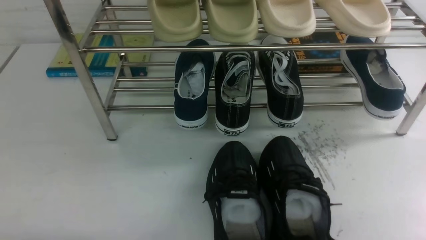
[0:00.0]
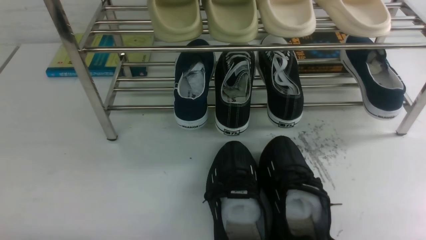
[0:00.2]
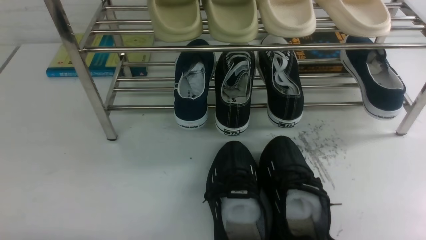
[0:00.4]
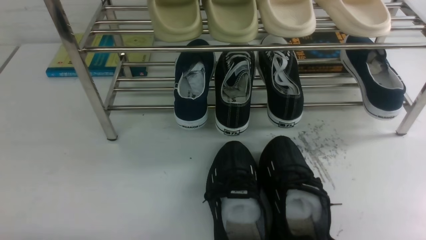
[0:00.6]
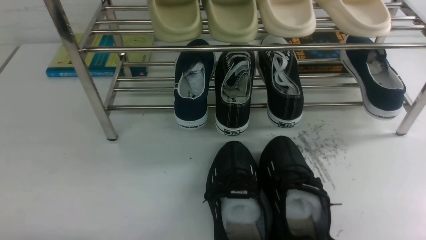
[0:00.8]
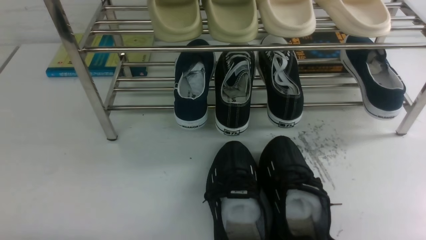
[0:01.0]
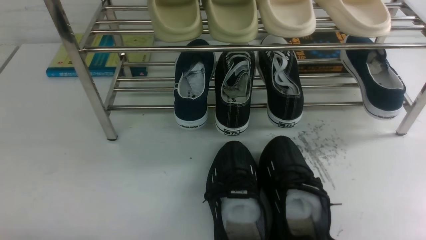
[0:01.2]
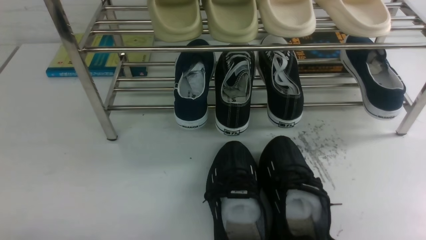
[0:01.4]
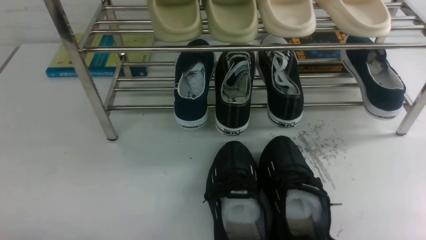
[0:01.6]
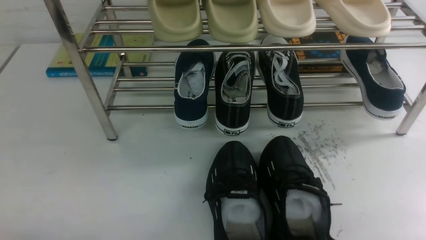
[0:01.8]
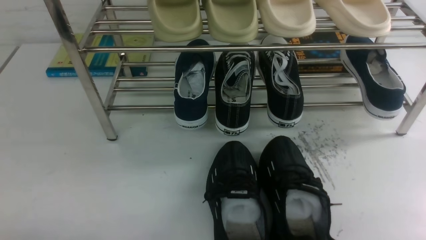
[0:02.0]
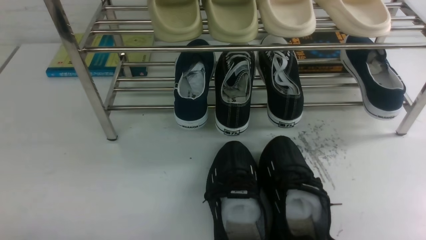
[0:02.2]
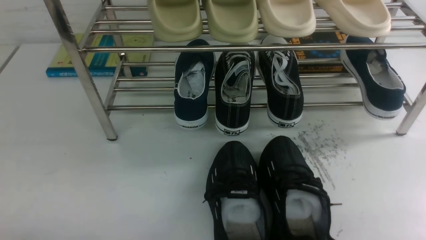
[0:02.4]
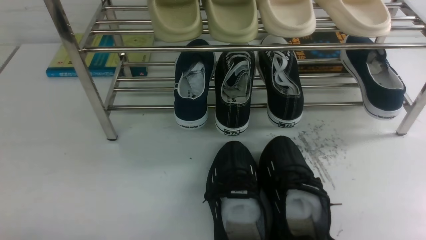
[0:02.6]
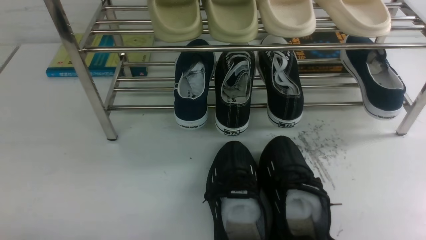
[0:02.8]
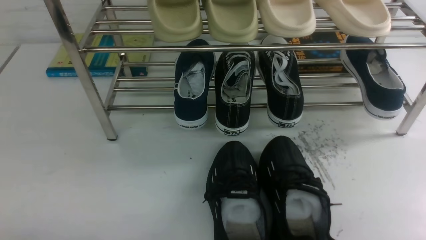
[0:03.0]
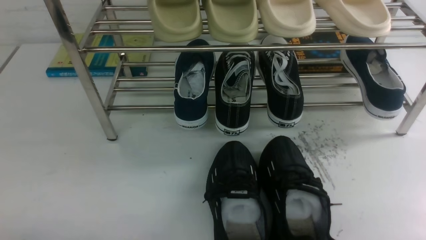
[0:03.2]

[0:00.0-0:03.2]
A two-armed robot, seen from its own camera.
0:01.6 to 0:03.2: Neither gripper changes place.

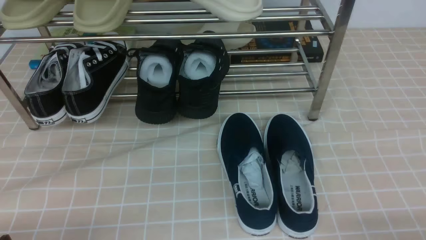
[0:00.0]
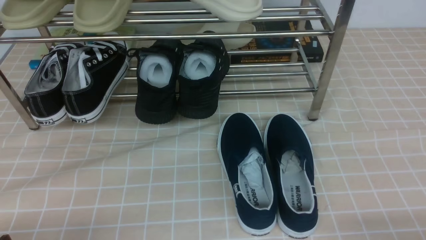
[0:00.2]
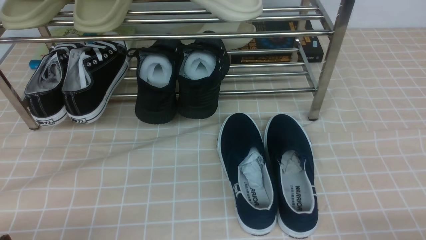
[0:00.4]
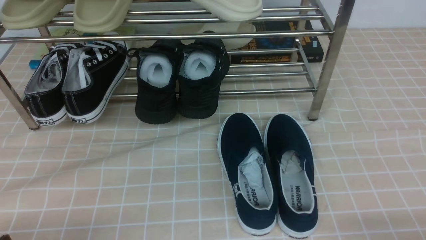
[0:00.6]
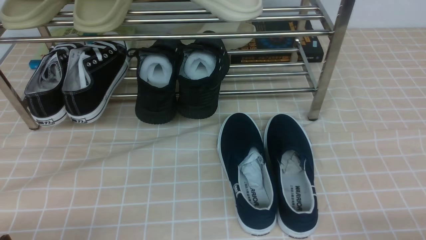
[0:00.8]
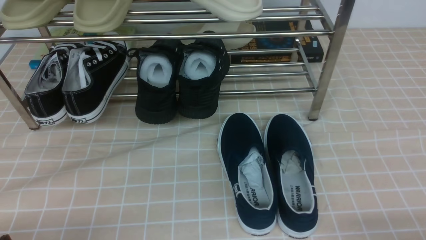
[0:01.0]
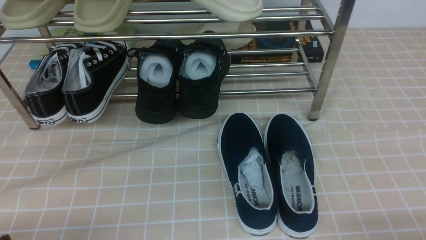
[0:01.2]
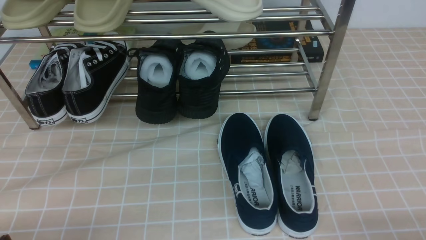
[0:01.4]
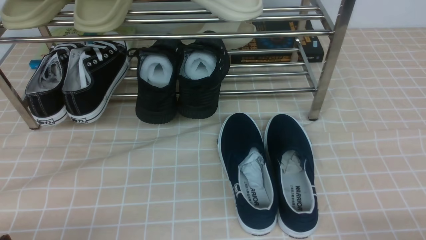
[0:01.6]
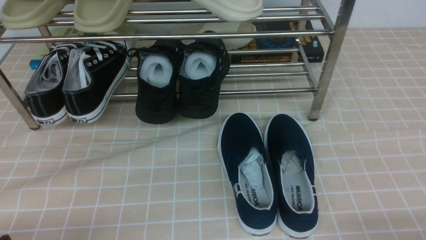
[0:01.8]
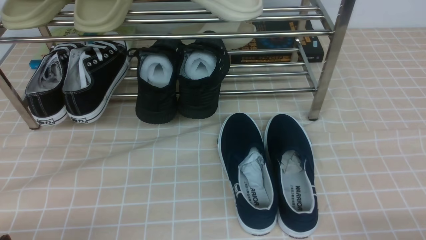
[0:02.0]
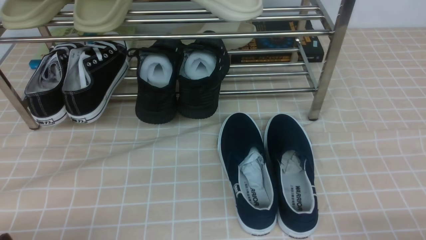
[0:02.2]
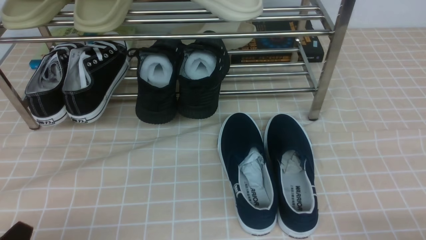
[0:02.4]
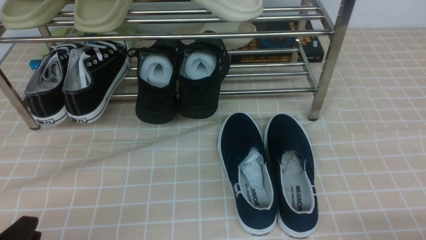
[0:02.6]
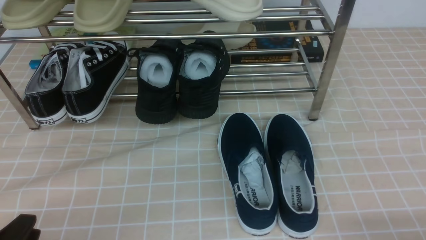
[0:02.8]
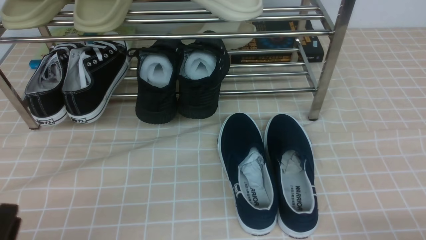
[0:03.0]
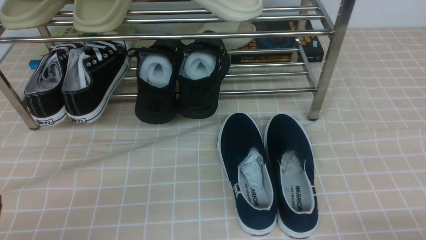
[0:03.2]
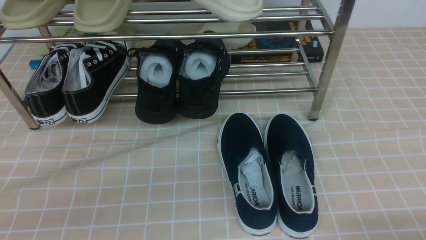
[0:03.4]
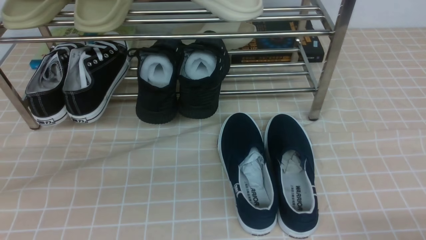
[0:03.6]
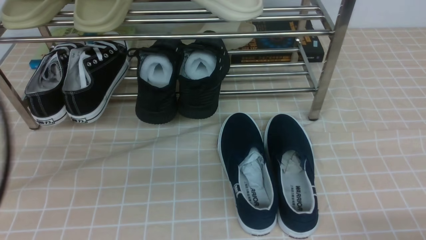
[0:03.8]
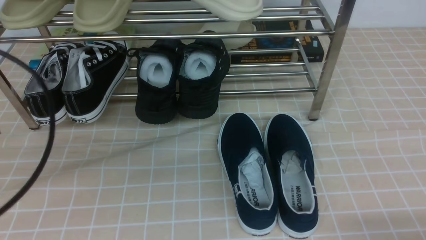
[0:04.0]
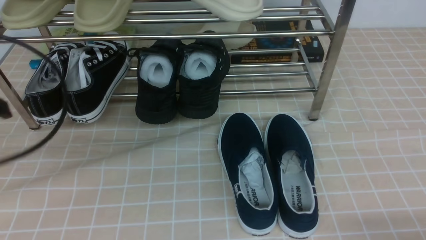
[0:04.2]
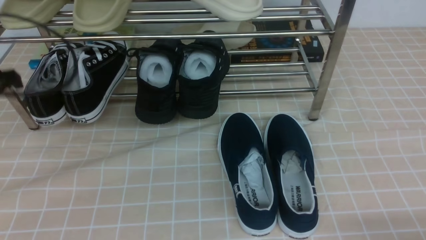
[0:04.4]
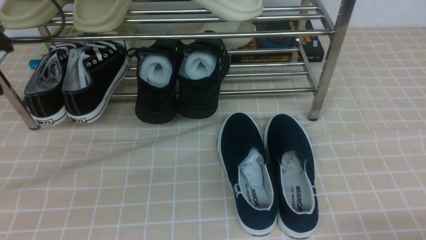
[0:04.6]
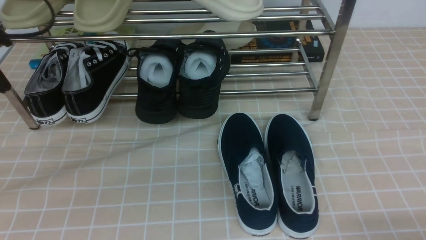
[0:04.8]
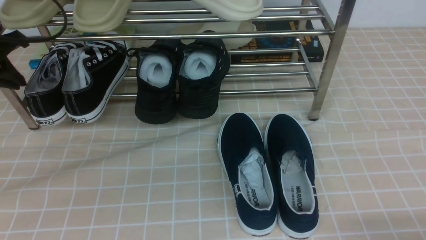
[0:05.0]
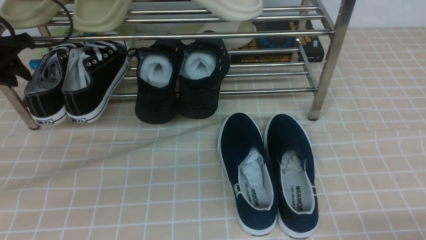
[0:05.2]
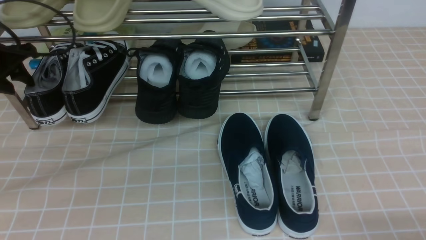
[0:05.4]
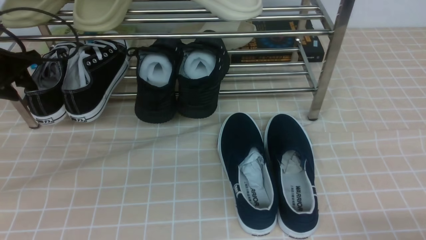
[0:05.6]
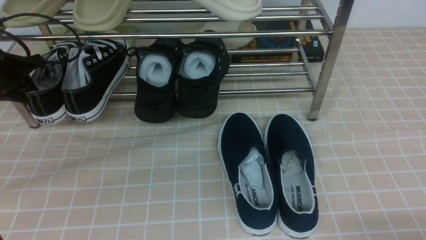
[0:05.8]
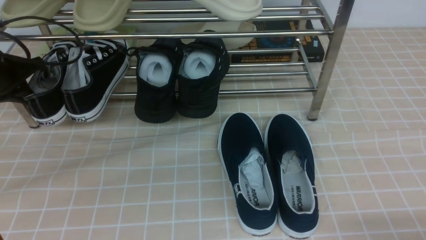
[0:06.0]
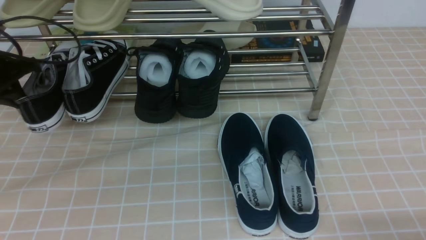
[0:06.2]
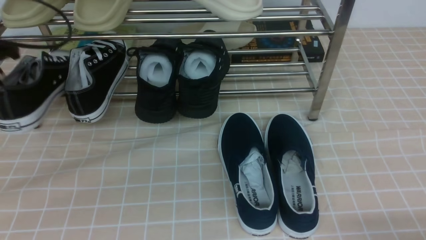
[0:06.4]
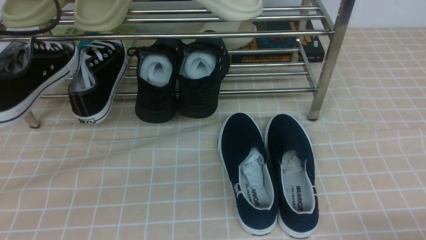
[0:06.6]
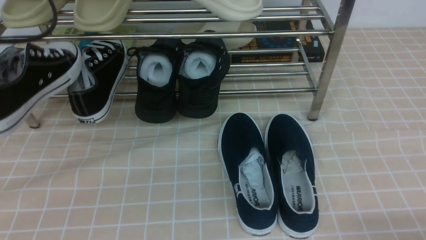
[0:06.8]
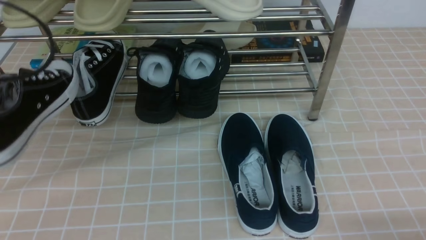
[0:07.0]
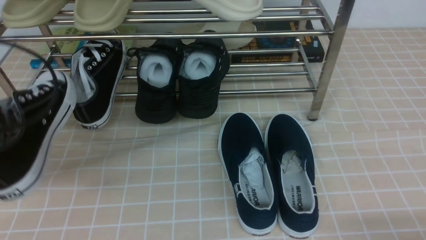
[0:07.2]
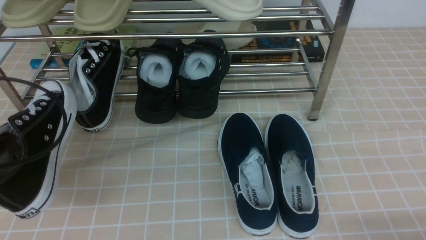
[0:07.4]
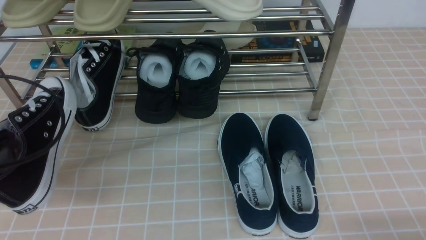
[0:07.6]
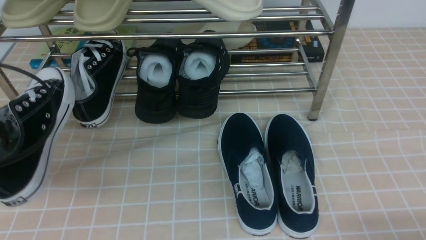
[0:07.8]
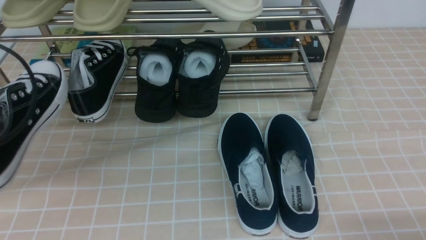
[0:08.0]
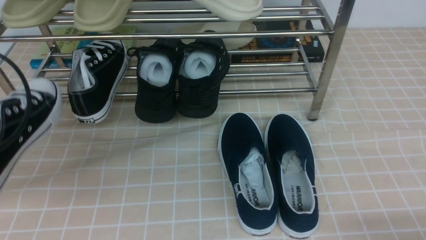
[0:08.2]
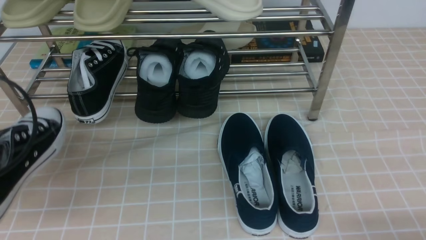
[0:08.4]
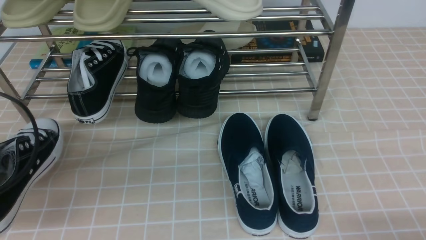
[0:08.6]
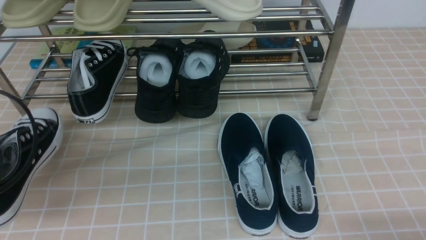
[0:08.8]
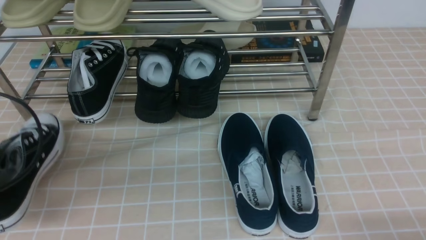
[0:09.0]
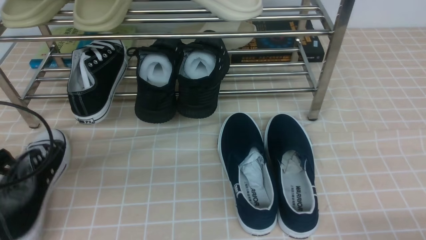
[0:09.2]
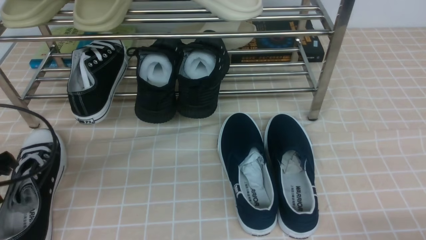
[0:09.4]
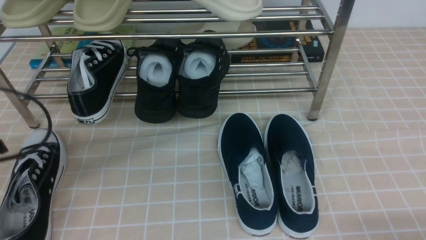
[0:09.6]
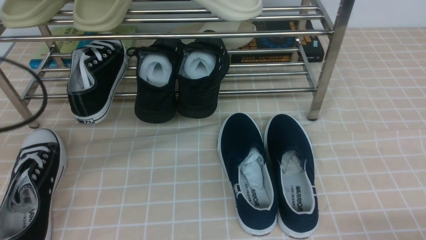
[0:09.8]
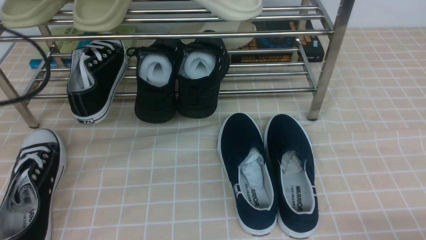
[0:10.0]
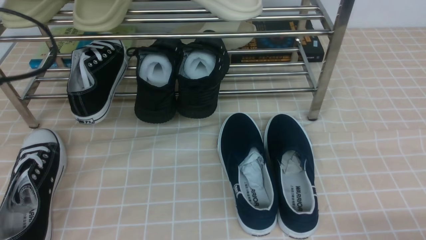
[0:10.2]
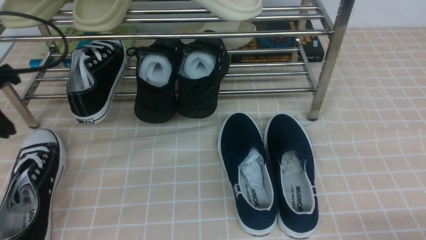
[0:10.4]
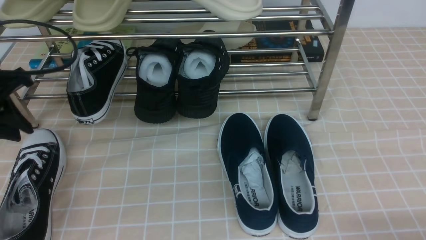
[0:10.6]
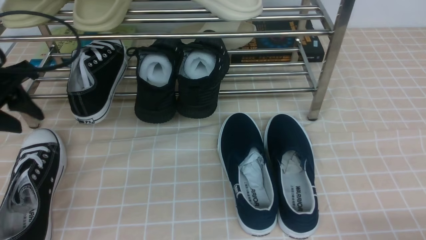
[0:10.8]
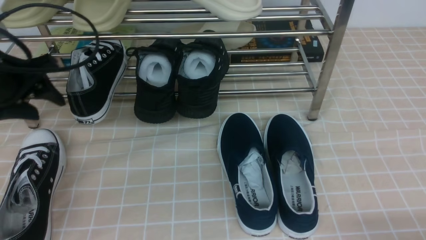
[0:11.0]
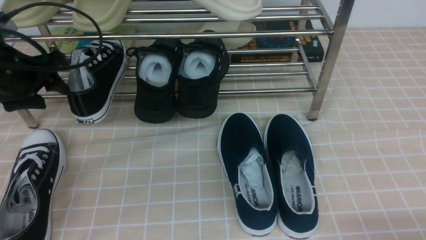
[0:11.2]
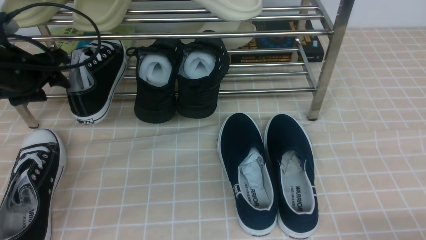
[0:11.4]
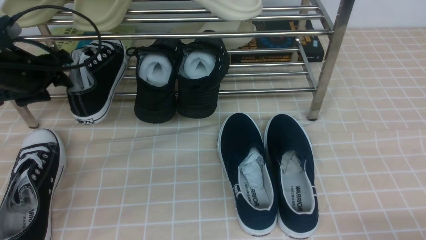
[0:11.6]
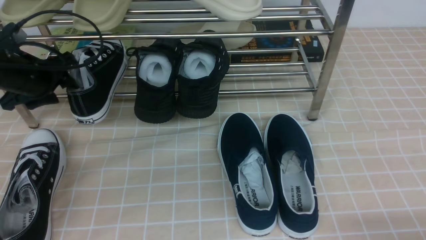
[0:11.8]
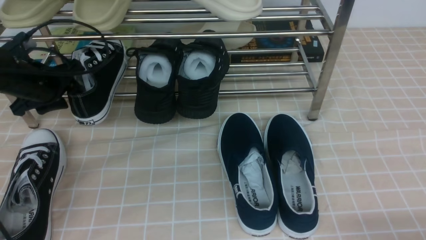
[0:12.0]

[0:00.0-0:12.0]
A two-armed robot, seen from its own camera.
Step, 0:00.0 to 0:05.8: use the left arm to clamp a shoe on the left side of the shoe rack.
Step, 0:06.0 to 0:09.4: Use your left arm to remove the clamped shoe from the shoe rack and put it down.
0:03.0 to 0:04.4: The left gripper shifts some 25 cm forward and upward, and closes its fingers.
0:04.4 to 0:06.0: The left gripper goes roughly 15 cm forward and downward, and opens and closes again.
0:06.0 to 0:07.6: The left gripper travels backward by approximately 20 cm.
0:07.6 to 0:09.0: The grippers move only a little.
0:09.0 to 0:10.4: The left gripper travels forward and upward by approximately 10 cm, and opens and closes again.
0:10.4 to 0:12.0: The left gripper heads forward and downward, covering some 15 cm, and opens.

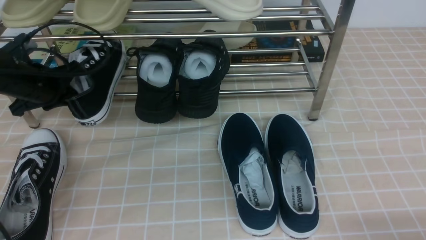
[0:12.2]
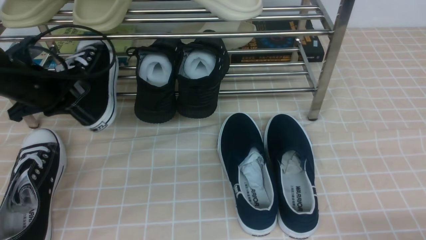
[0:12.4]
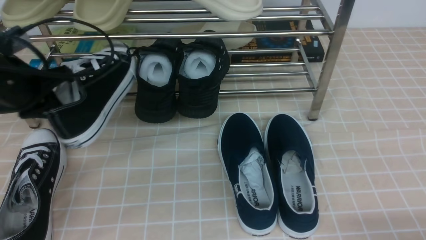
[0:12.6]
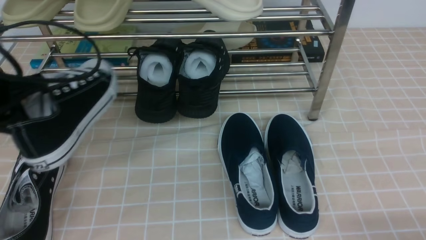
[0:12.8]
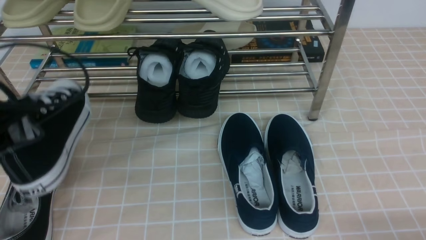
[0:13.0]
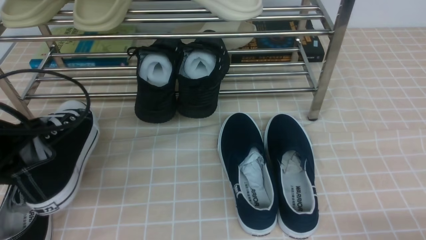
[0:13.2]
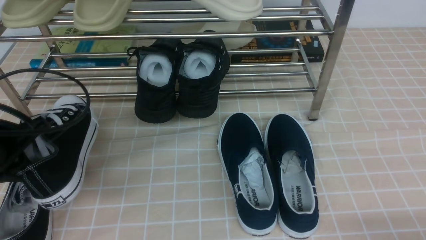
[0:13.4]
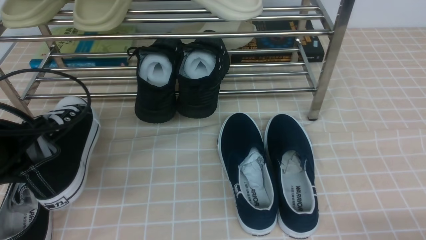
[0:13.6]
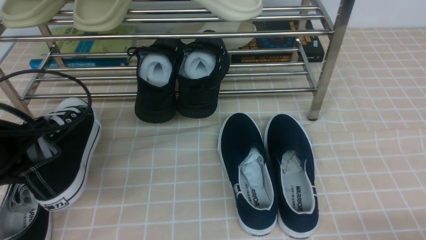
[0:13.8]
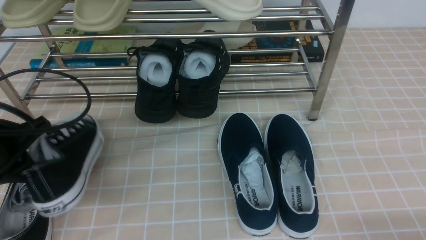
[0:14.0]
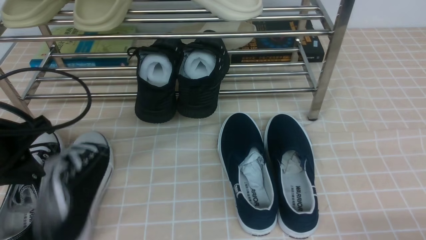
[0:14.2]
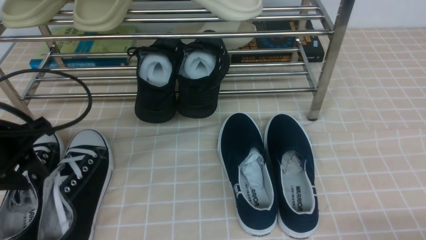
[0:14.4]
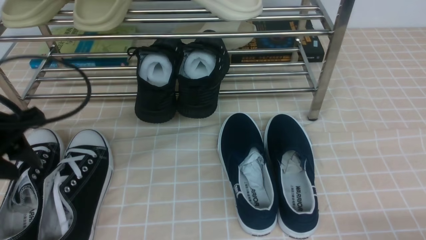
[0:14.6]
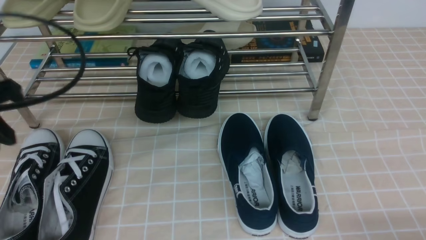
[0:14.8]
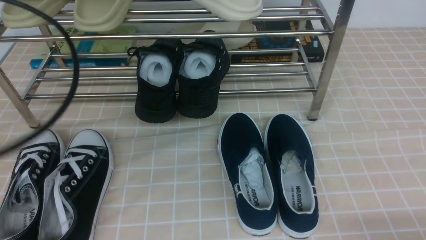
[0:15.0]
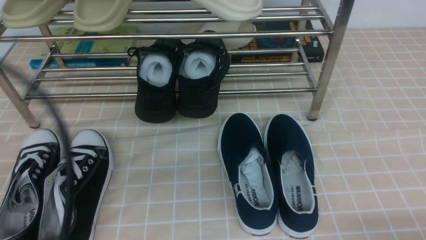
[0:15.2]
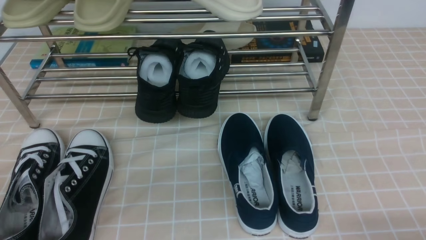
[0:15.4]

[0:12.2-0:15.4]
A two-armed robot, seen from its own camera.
Step, 0:12.2 to 0:14.4: Use your left arm to remove the clamped shoe from the shoe rack and put it down.
0:12.2 to 0:13.8: The left gripper goes roughly 15 cm backward.
0:13.8 to 0:15.4: The left gripper heads backward, covering about 20 cm, and opens, then closes once more.
